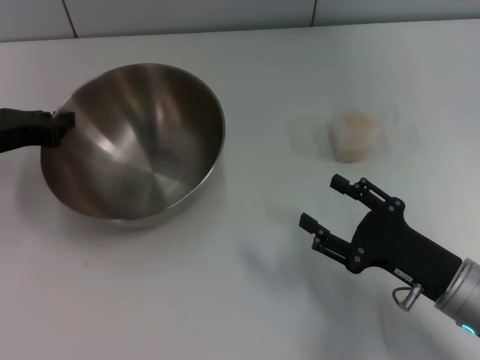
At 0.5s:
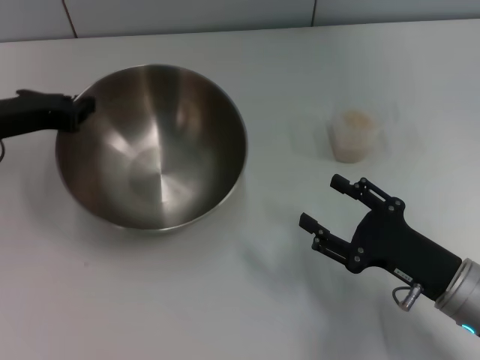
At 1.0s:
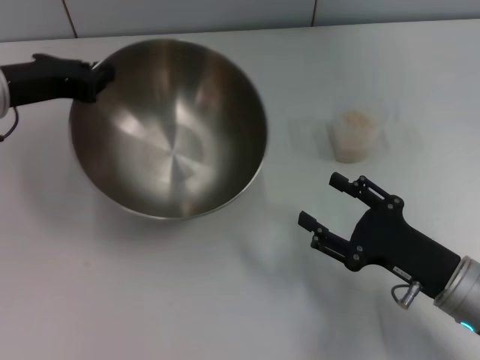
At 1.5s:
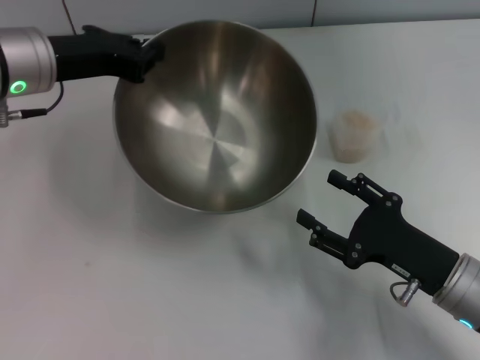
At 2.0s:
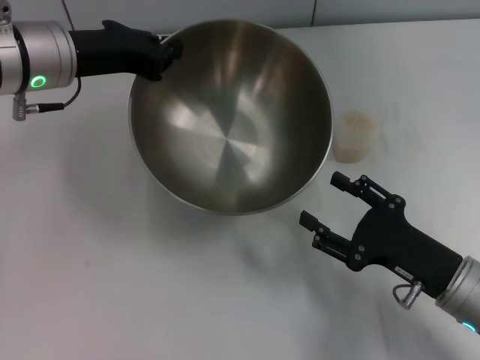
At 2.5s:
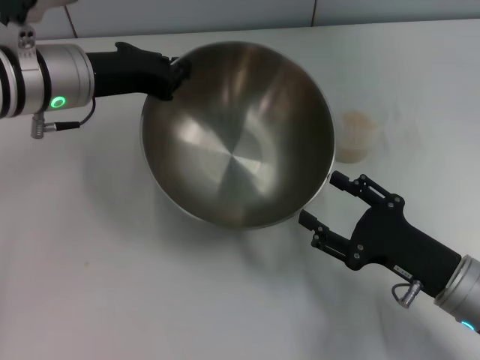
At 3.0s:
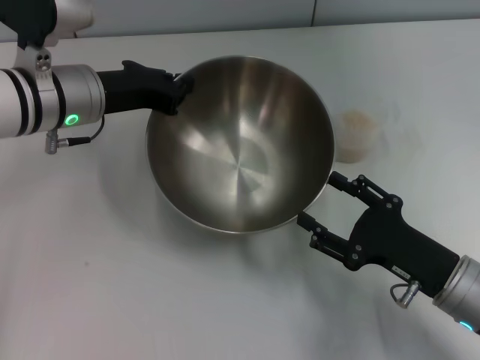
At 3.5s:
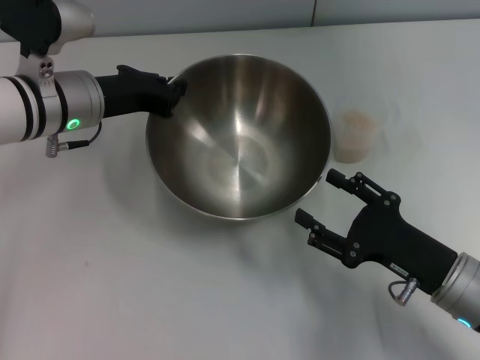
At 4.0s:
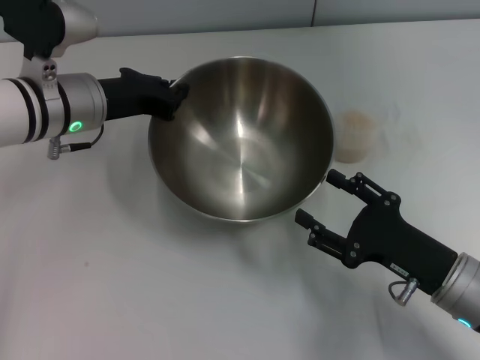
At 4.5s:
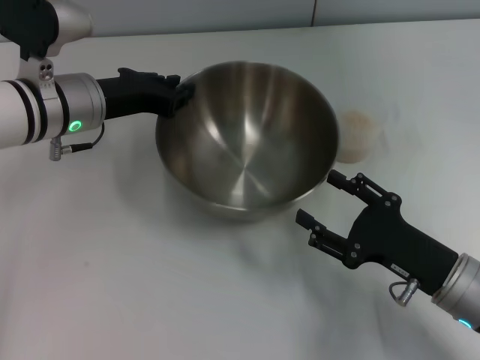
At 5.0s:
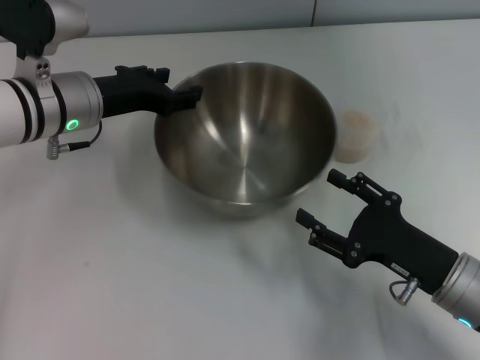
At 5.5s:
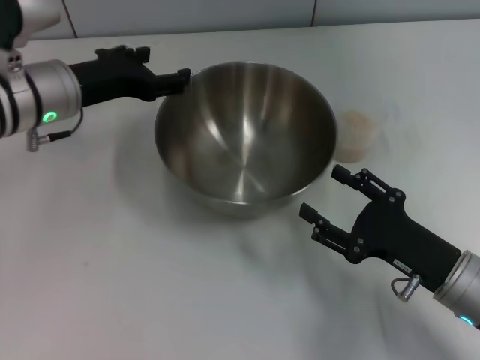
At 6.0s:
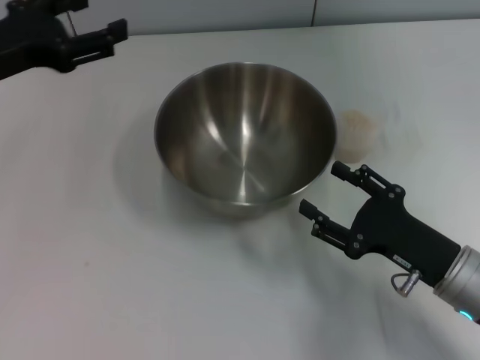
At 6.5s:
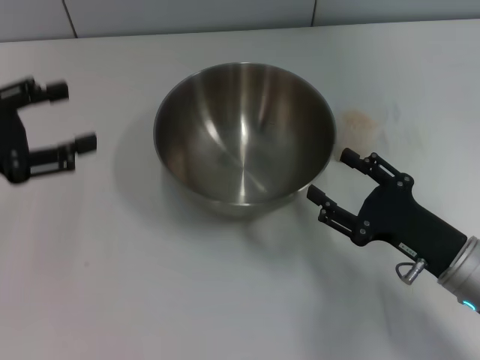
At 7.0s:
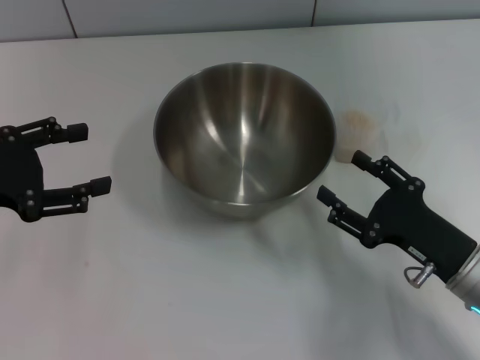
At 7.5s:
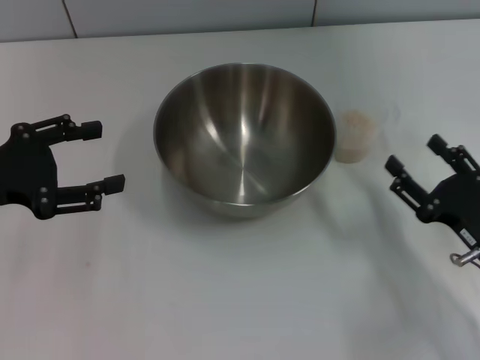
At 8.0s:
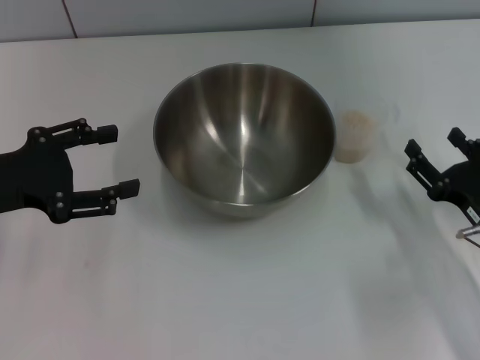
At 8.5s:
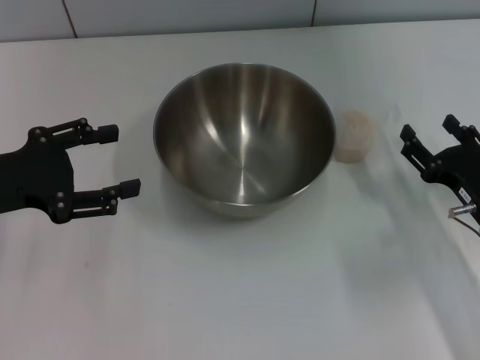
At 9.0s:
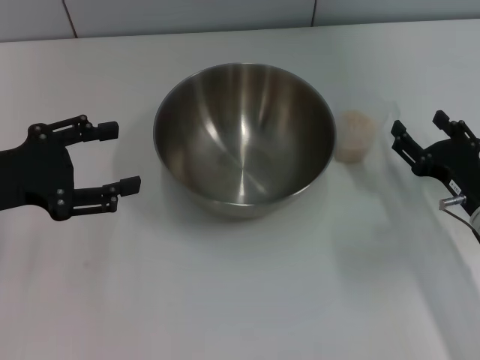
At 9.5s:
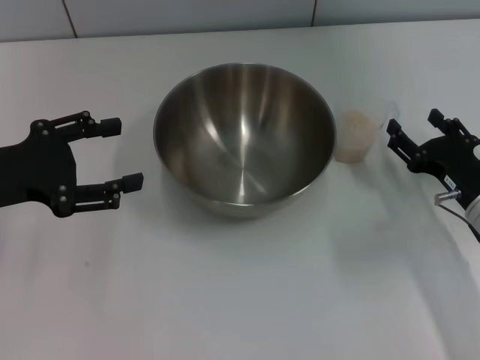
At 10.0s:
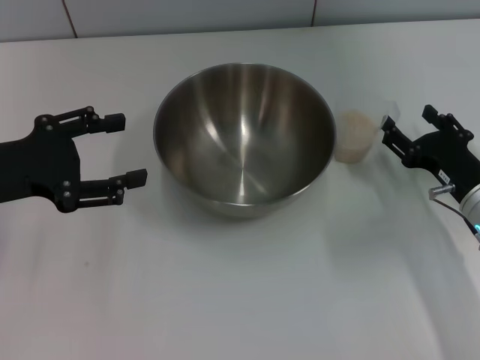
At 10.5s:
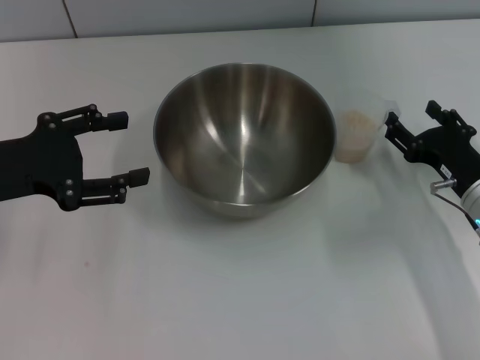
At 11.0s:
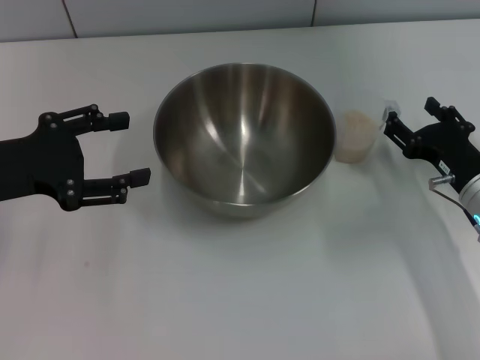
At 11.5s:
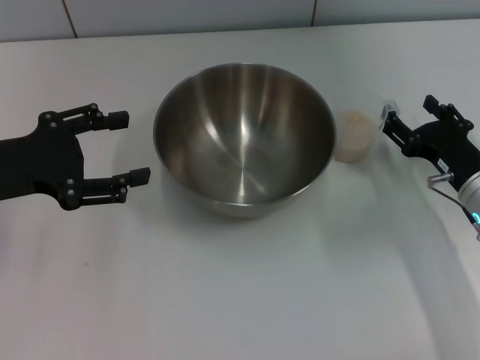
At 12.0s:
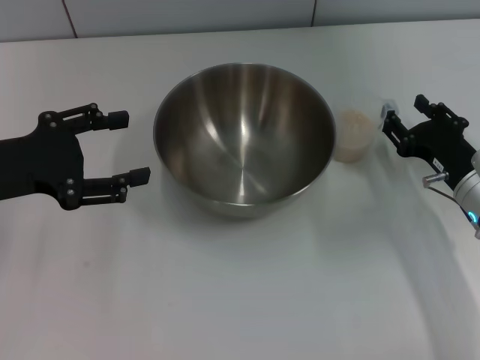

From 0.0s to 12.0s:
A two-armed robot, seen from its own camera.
Task of the whole recording: Place the bowl in the middle of the table with one hand and pour the rice from the grain cup into it with the other hand.
Step, from 0.5s to 5.0s: Place the bowl in the center of view with the left gripper.
From 0.0s to 2.0s: The left gripper travels to the right and upward by approximately 15 cm.
From 2.0s to 4.0s: The left gripper heads downward, covering approximately 5 cm.
From 4.0s to 6.0s: The left gripper is displaced to the left and upward by roughly 10 cm, and opens up.
From 6.0s to 8.0s: The right gripper travels to the right by about 5 cm. Meanwhile the left gripper shifts roughly 5 cm backward.
From 8.0s to 10.0s: The right gripper goes about 5 cm forward.
From 10.0s to 12.0s: The grippers stay close to where they were, moving slightly.

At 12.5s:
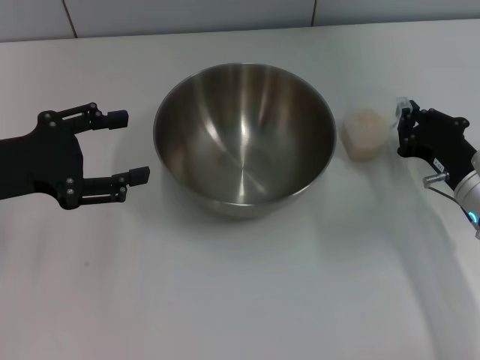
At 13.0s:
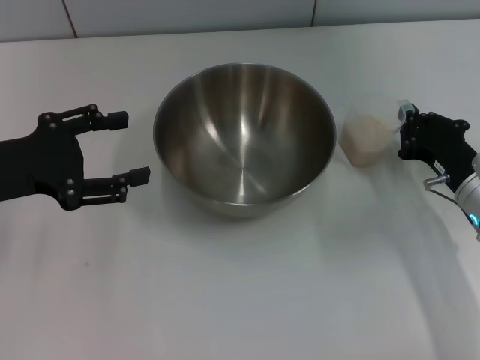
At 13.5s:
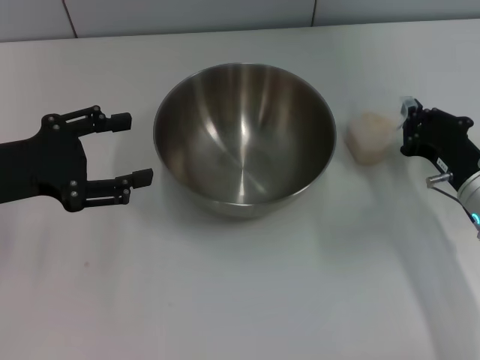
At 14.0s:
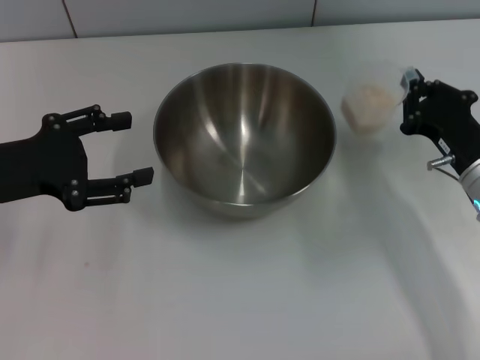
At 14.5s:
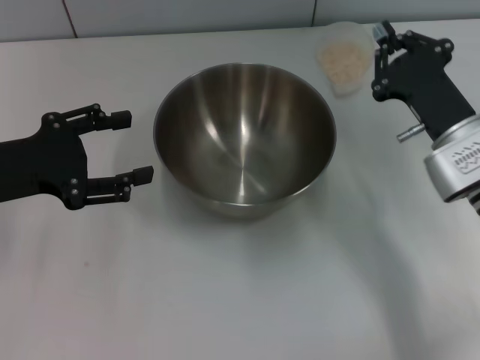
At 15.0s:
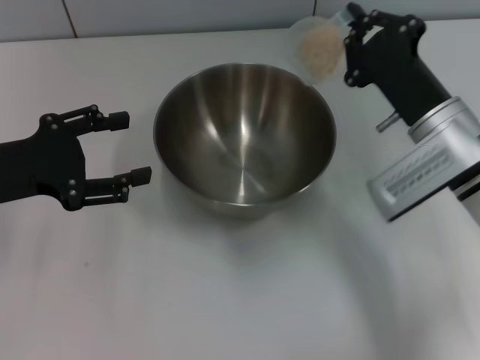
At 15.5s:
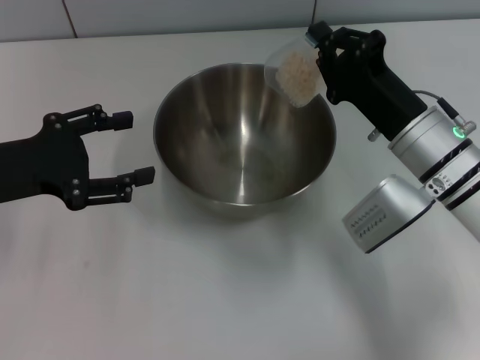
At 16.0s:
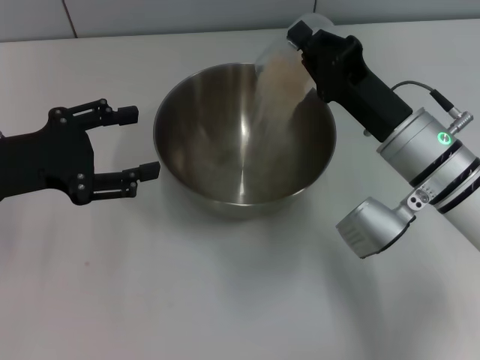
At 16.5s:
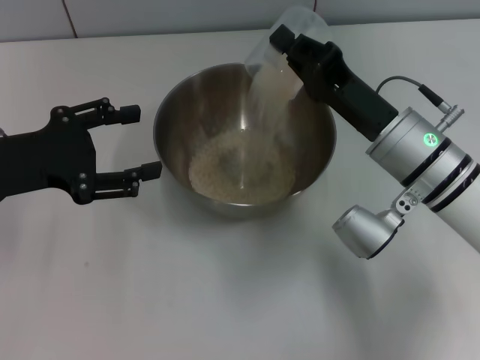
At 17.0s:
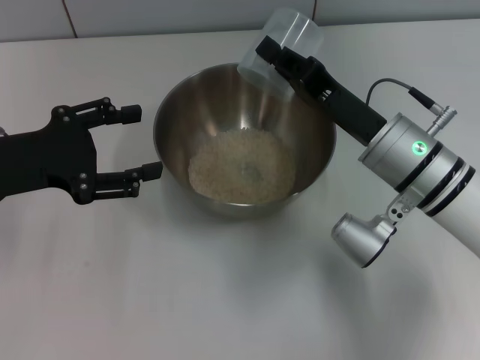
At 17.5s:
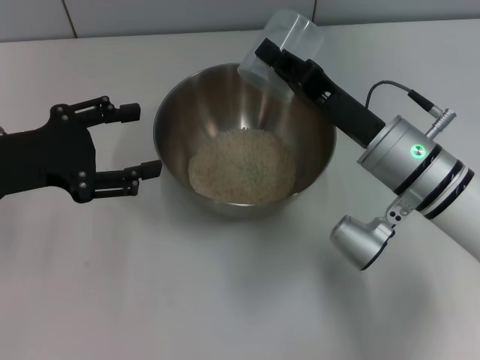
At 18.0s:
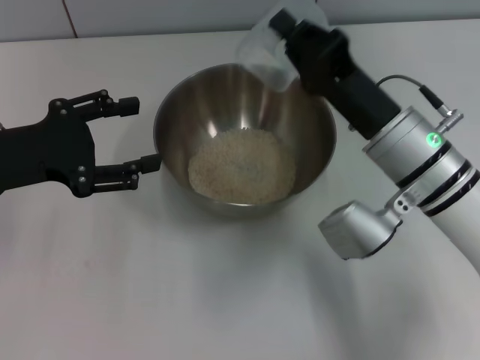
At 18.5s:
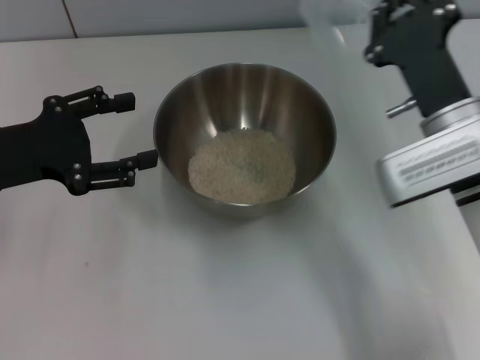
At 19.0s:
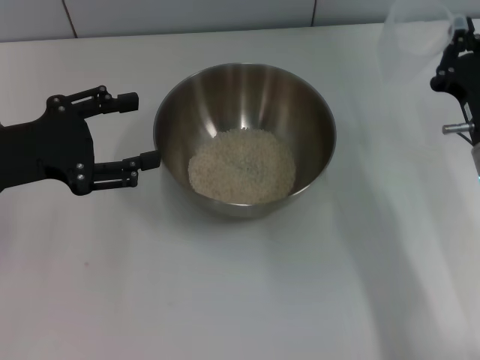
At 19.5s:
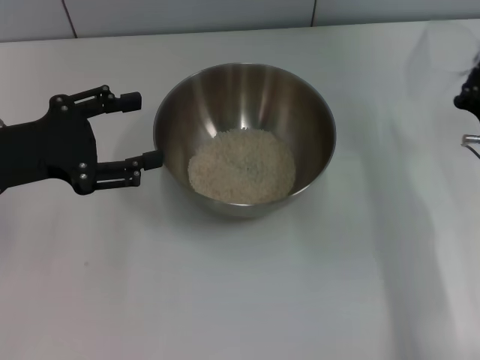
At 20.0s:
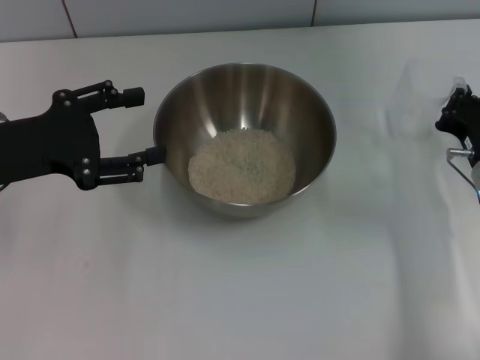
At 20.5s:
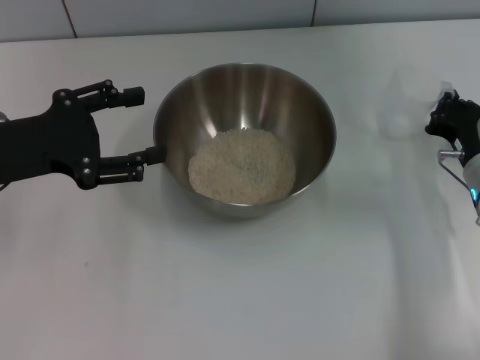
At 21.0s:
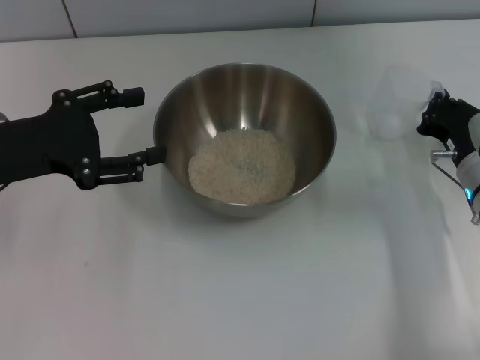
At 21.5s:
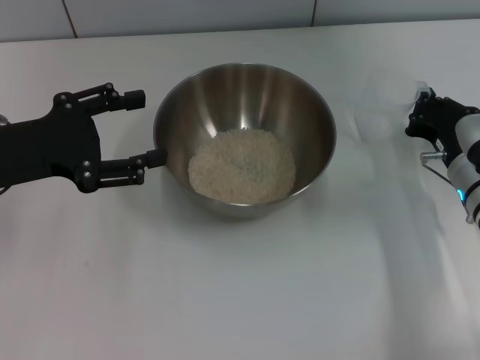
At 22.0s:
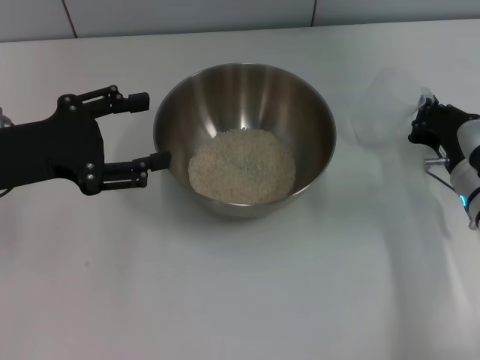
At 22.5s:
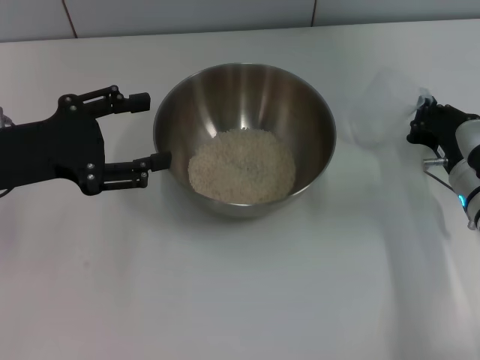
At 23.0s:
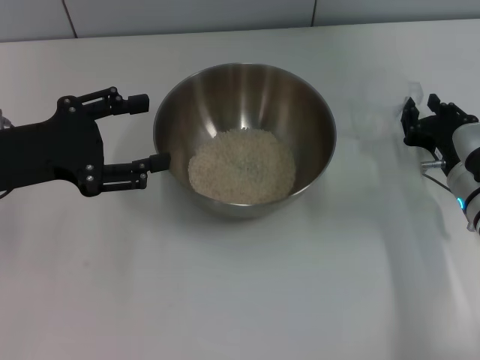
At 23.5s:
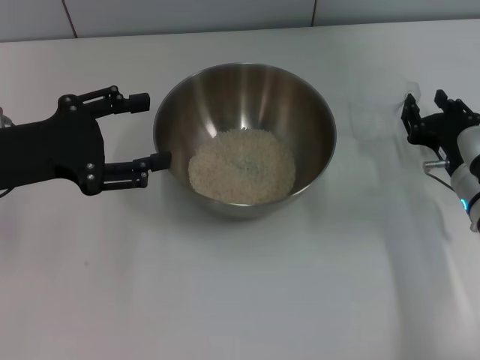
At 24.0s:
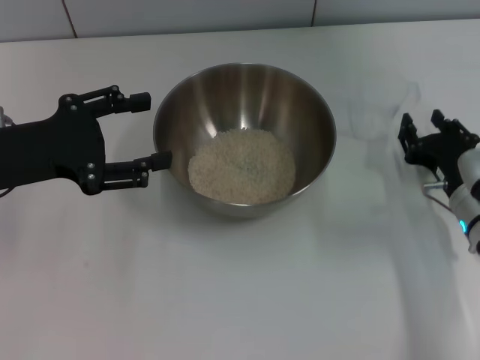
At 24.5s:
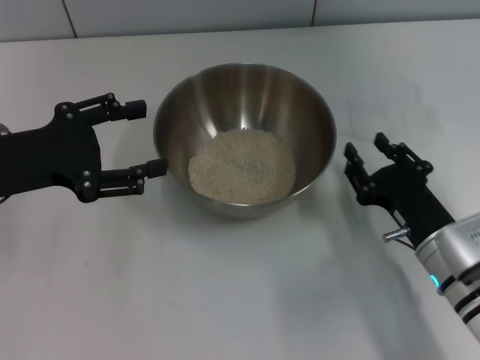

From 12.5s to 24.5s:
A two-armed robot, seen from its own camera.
Task of the whole recording: Place the bowl in the middle of the table with one hand and pour the rice from the grain cup into it with the other hand.
Step, from 14.5s to 18.0s: Pour the rice from the cup into the bowl with the right gripper.
Step, from 19.0s to 24.0s: Place the cup on the table with the right gripper.
From 12.5s to 14.5s: The right gripper changes place by some 5 cm, and closes.
From 14.5s to 16.5s: The right gripper heads to the left, covering approximately 5 cm.
From 18.5s to 20.5s: The right gripper moves downward and to the right, approximately 10 cm.
From 20.5s to 22.5s: There are only small adjustments of the grippers.
From 22.5s to 24.5s: The right gripper shifts roughly 10 cm backward, and opens.

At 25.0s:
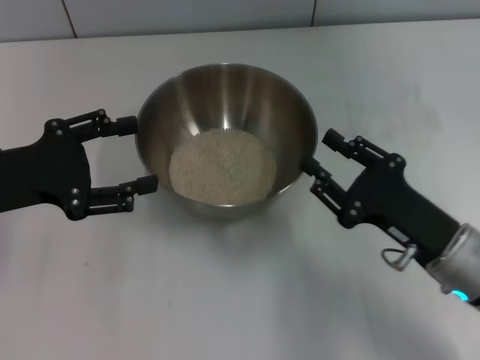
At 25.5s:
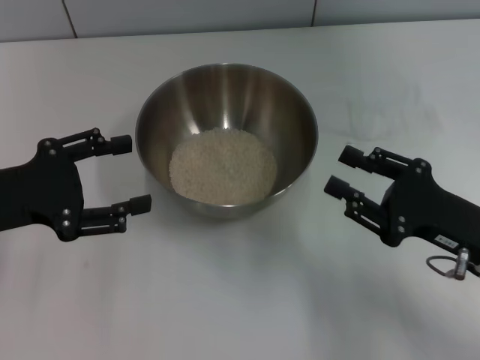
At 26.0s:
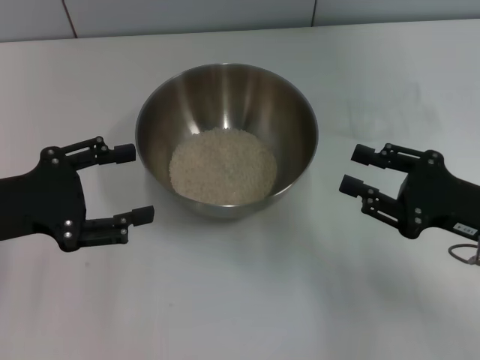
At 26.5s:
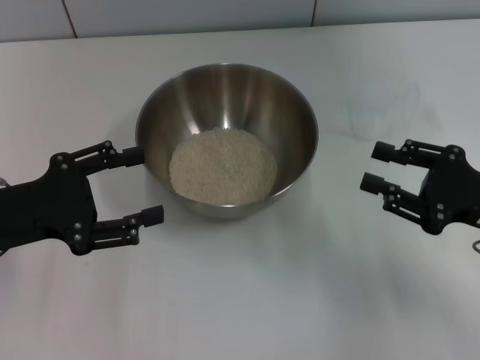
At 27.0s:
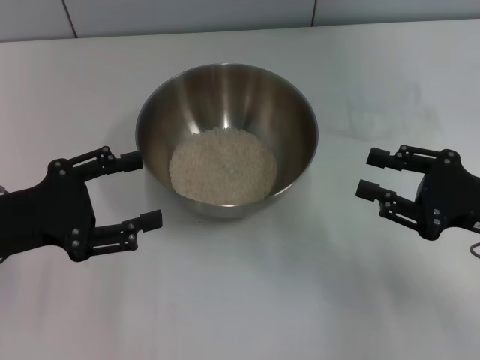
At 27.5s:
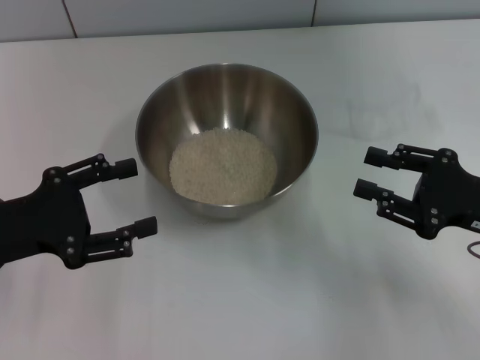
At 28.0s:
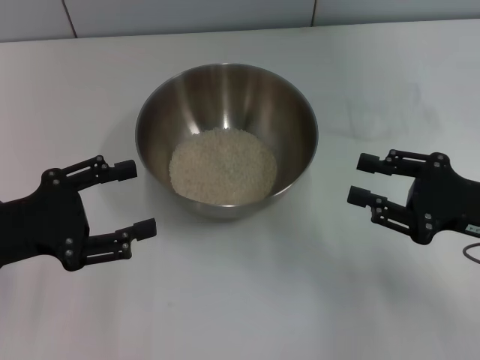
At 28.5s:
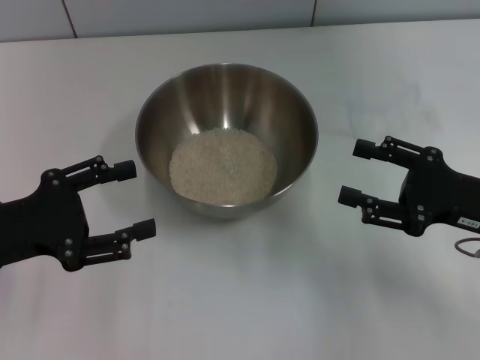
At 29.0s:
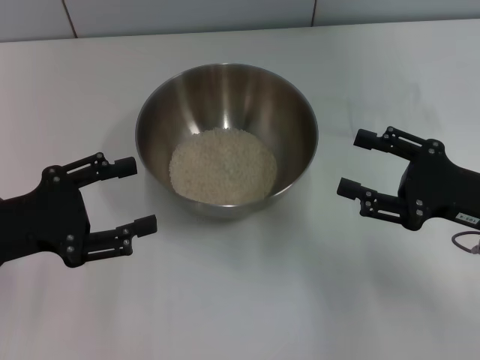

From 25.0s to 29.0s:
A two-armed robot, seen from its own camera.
Task of the whole recording: Place the bowl in the middle of the table with one hand and pour the rice from the grain cup into it with the other hand.
From 25.0s to 27.0s: The right gripper travels to the right by about 10 cm.
From 27.0s to 29.0s: The grippers move only a little.
